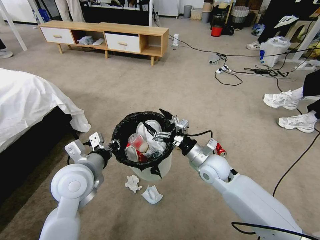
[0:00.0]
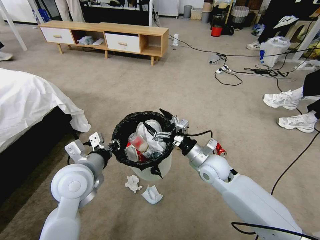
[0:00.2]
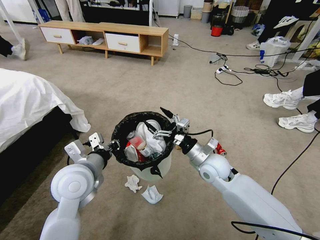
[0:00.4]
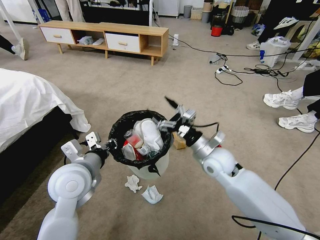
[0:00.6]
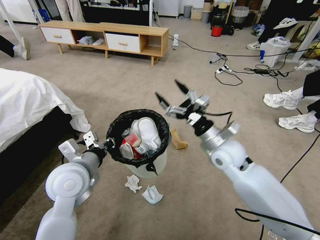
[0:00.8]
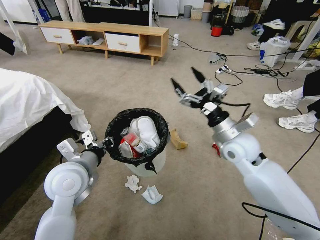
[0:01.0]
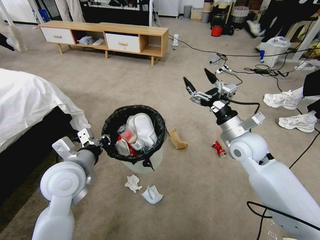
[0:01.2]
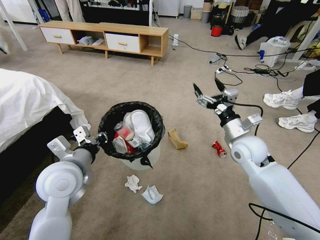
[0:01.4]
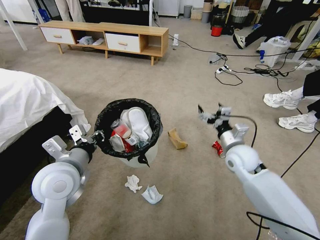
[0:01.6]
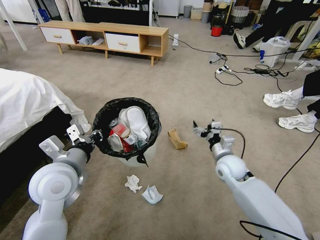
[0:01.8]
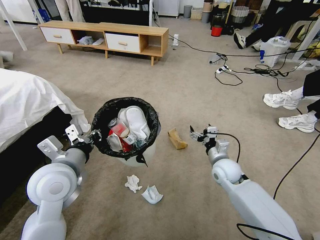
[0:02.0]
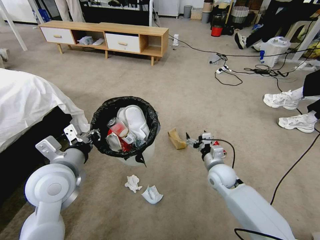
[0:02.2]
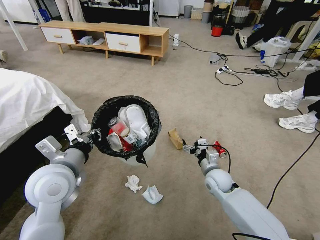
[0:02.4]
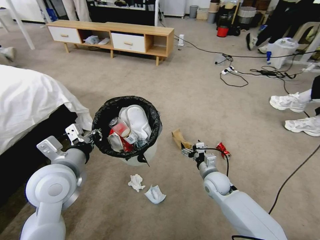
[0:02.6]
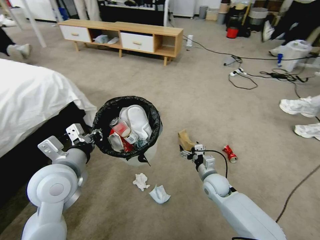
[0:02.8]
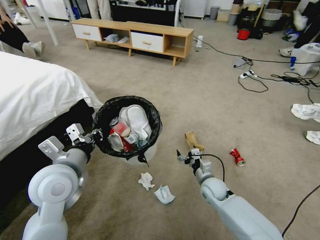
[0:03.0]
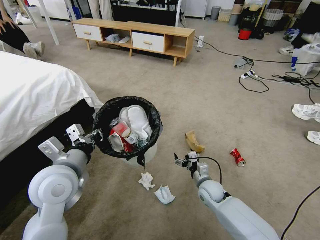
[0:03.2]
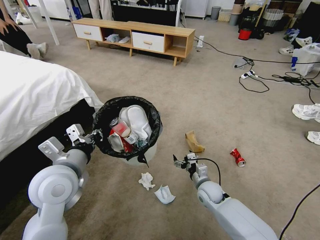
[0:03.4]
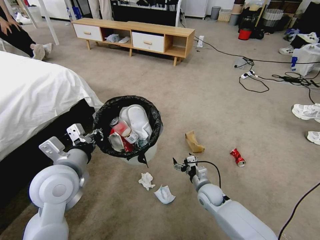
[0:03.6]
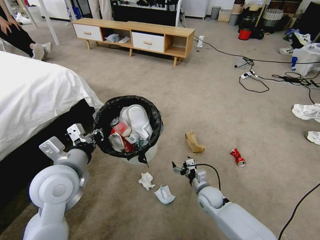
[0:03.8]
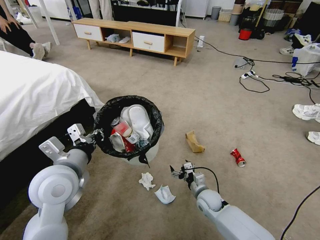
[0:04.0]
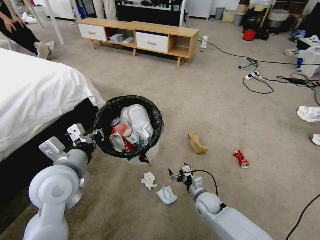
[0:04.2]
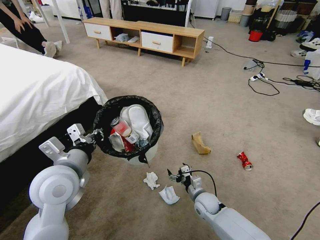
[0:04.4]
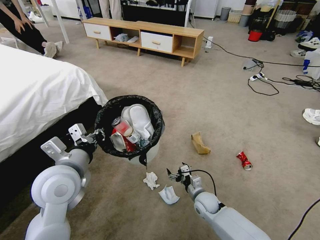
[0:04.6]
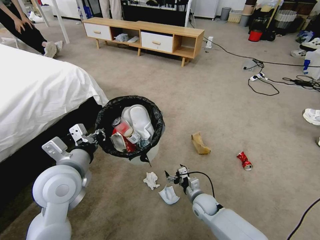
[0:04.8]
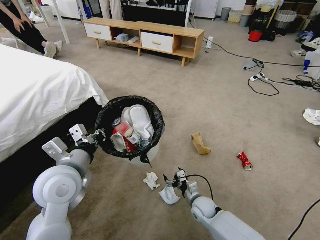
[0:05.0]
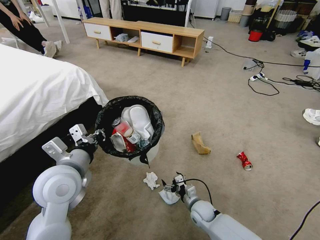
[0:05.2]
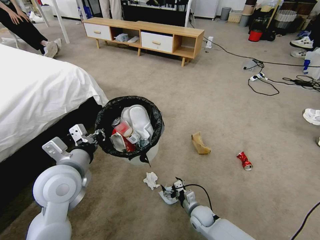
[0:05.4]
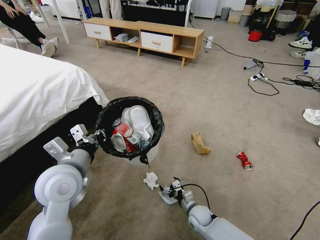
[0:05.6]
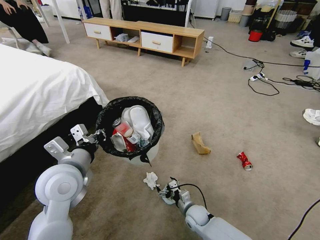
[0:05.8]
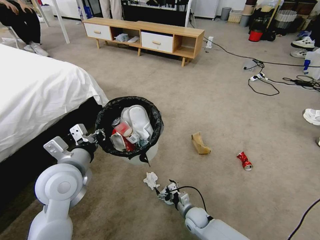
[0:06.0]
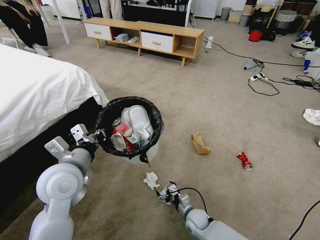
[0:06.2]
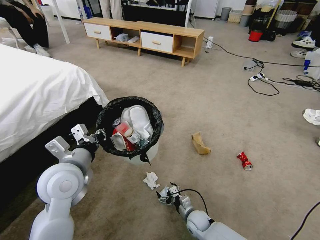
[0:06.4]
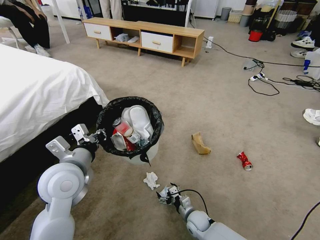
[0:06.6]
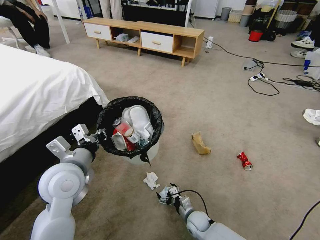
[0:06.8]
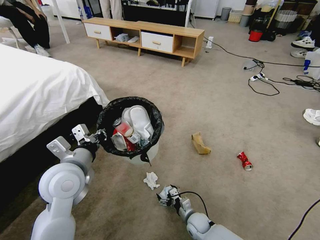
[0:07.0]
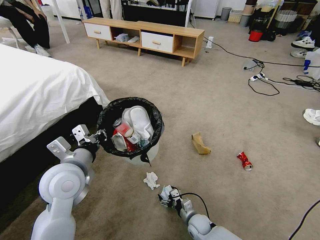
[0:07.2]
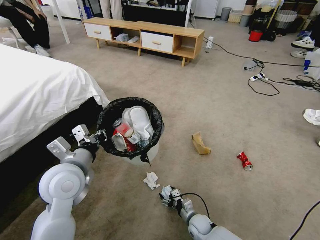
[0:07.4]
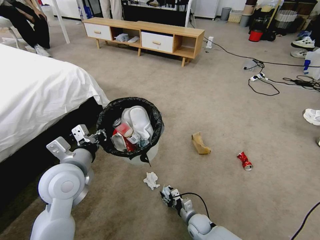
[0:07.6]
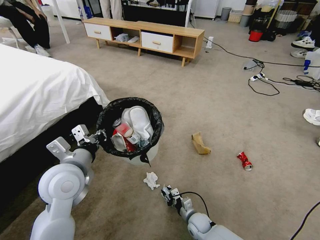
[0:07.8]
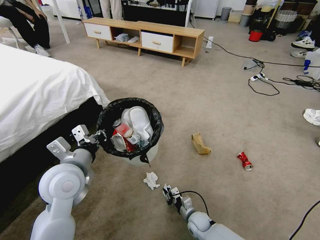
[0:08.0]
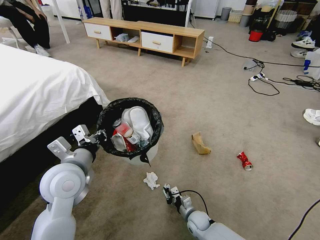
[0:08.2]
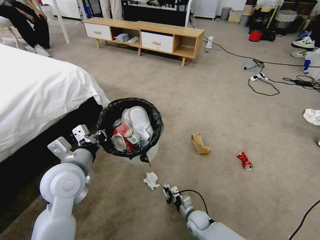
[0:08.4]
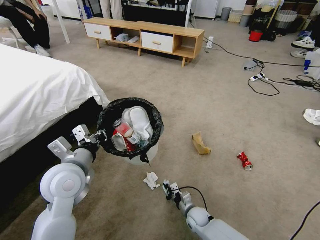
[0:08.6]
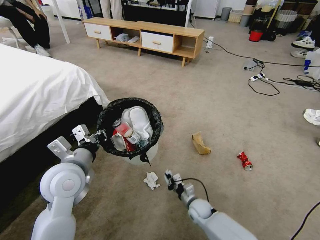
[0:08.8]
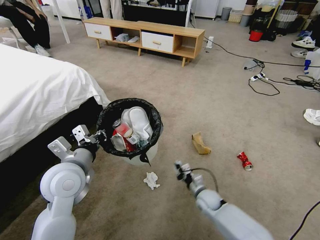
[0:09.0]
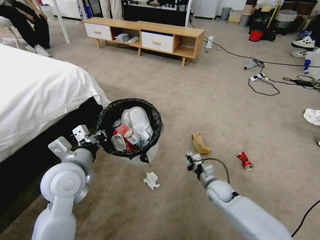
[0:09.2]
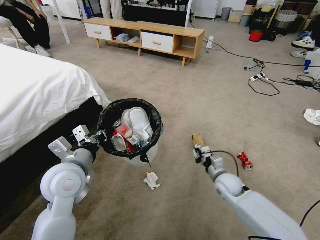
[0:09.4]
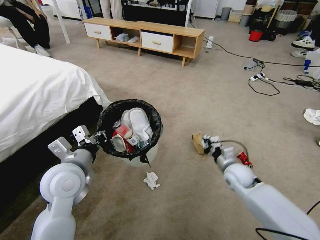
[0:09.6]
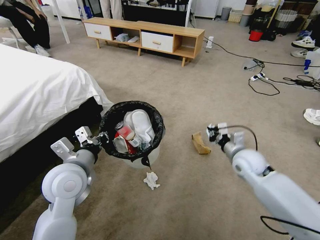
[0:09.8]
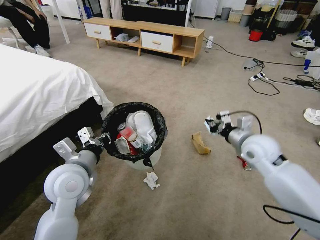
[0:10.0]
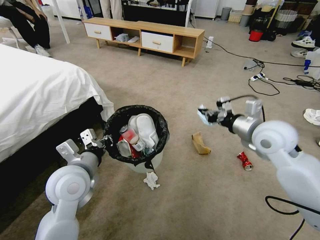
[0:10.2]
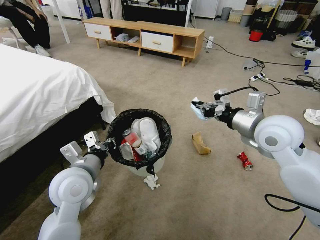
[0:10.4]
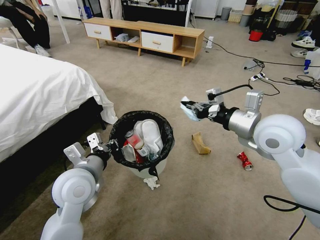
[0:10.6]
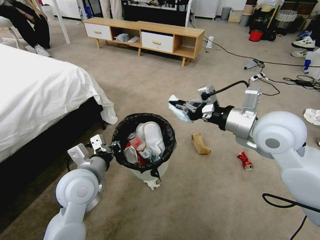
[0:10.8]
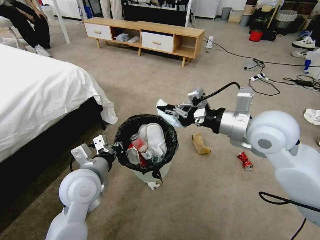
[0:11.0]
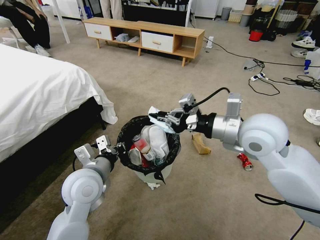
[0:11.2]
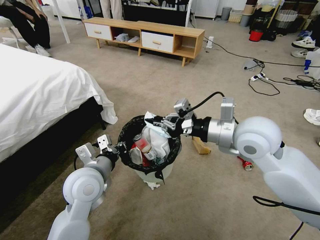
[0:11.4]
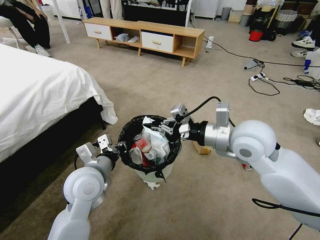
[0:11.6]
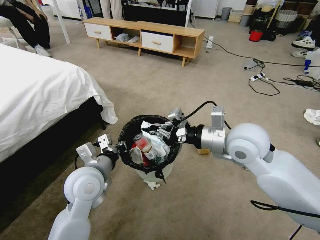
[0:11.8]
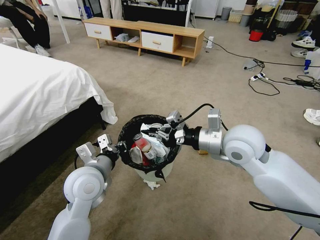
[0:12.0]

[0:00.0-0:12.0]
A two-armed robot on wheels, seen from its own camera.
Task of the whole recording: Pick up the trash bin and place the garbage on the floor into it.
0:00.0 to 0:01.6: The right gripper moves to the right, roughly 10 cm, and reaches approximately 10 cm upward, then returns.
0:01.6 to 0:03.0: The right gripper heads downward, covering some 15 cm.
0:03.0 to 0:04.4: The right gripper goes some 10 cm downward.
0:04.4 to 0:06.0: The right gripper is displaced downward by roughly 5 cm.
0:06.0 to 0:07.6: The right gripper closes its fingers.
0:07.6 to 0:09.0: The right gripper moves upward and forward, about 10 cm, and closes its fingers.
0:09.0 to 0:10.4: The right gripper heads upward, covering roughly 40 cm.
0:10.4 to 0:12.0: The right gripper goes approximately 10 cm to the left.

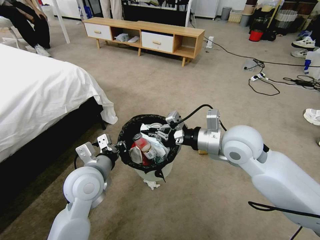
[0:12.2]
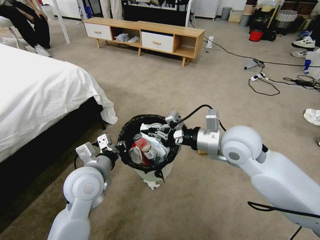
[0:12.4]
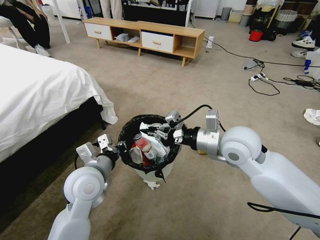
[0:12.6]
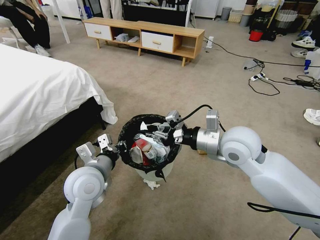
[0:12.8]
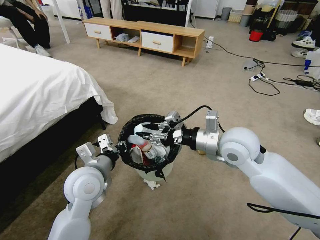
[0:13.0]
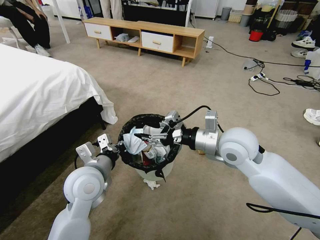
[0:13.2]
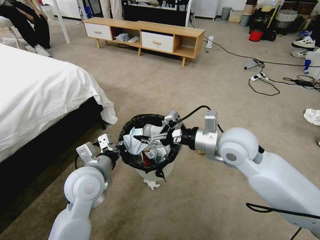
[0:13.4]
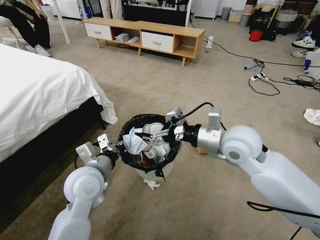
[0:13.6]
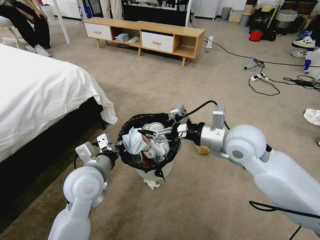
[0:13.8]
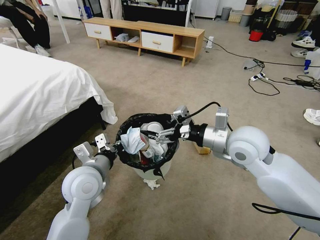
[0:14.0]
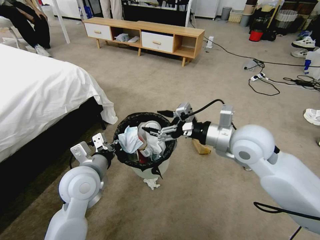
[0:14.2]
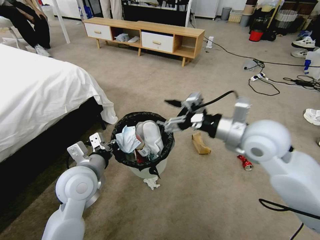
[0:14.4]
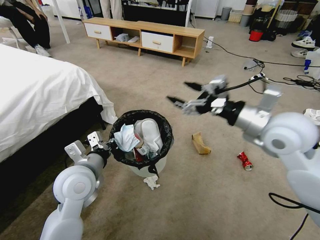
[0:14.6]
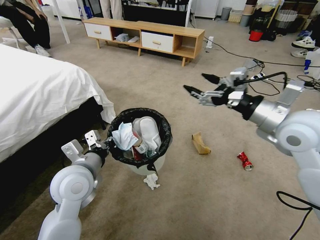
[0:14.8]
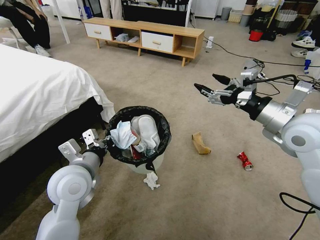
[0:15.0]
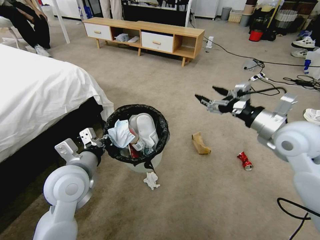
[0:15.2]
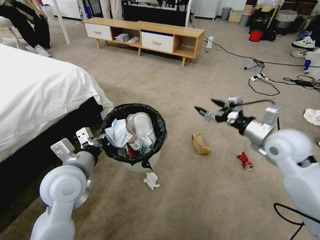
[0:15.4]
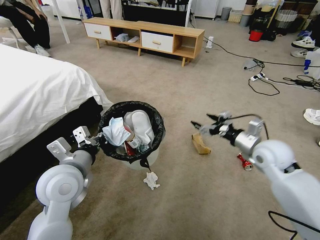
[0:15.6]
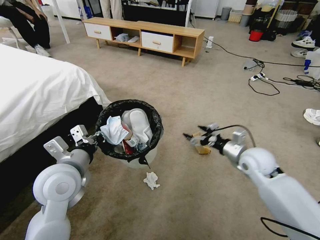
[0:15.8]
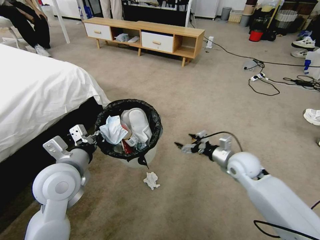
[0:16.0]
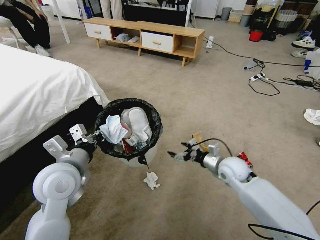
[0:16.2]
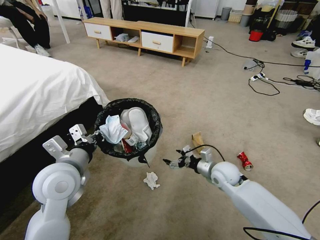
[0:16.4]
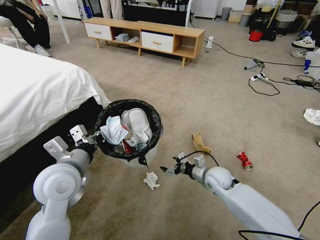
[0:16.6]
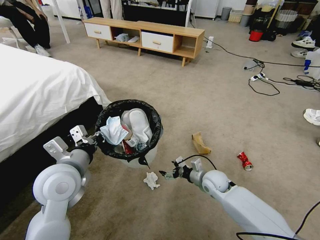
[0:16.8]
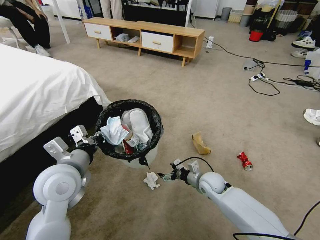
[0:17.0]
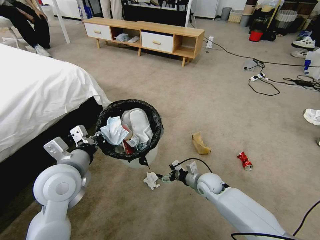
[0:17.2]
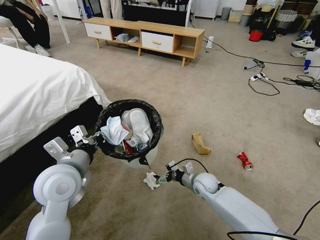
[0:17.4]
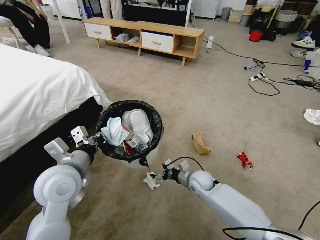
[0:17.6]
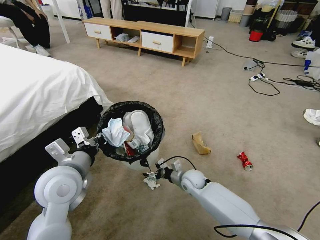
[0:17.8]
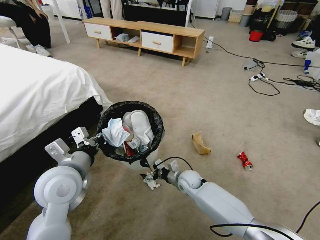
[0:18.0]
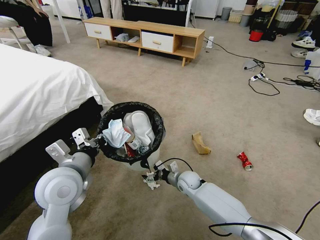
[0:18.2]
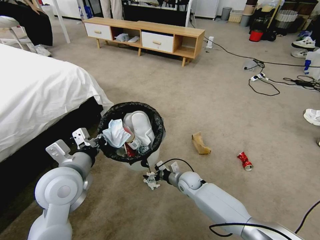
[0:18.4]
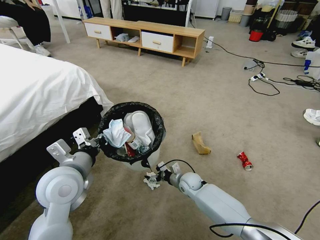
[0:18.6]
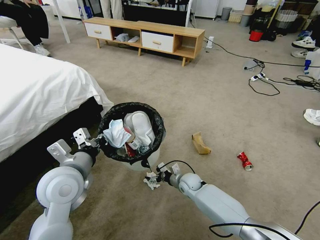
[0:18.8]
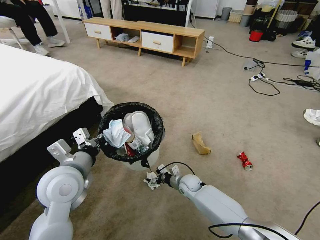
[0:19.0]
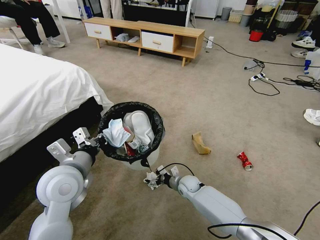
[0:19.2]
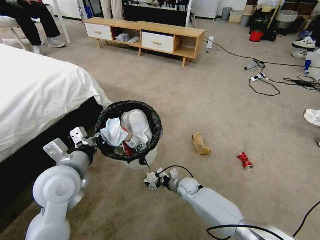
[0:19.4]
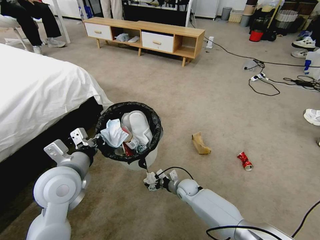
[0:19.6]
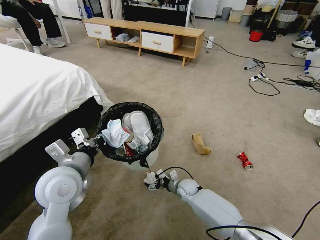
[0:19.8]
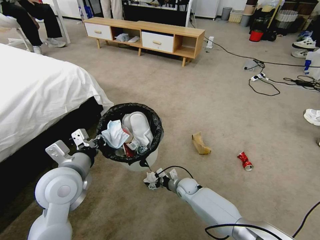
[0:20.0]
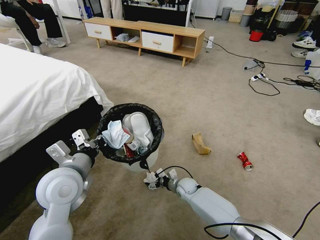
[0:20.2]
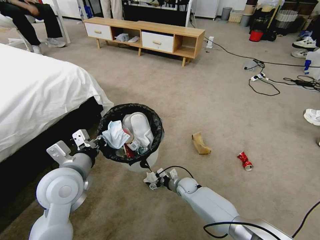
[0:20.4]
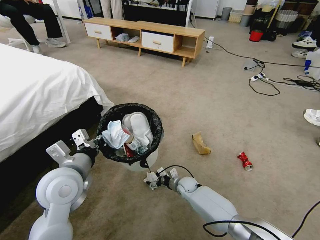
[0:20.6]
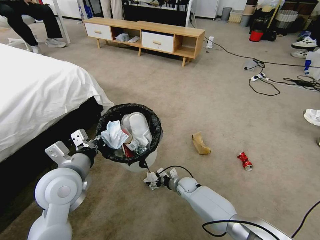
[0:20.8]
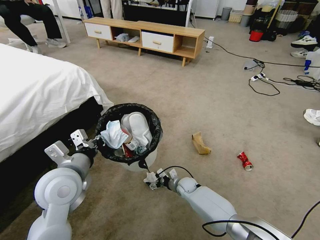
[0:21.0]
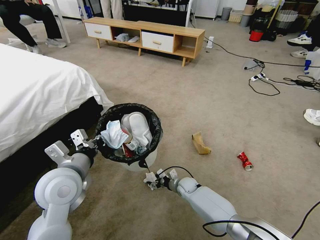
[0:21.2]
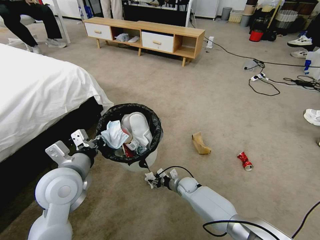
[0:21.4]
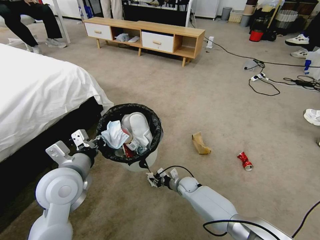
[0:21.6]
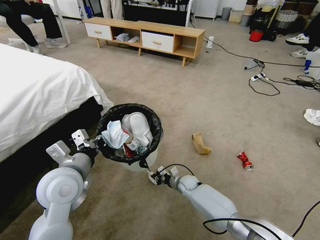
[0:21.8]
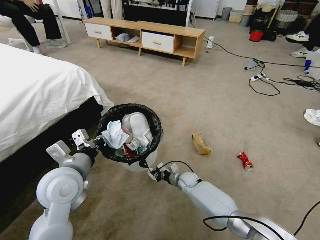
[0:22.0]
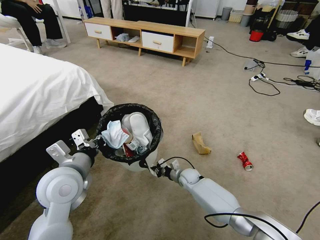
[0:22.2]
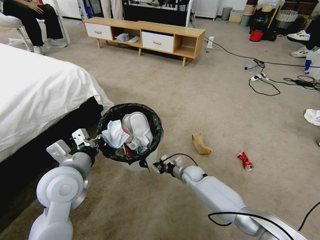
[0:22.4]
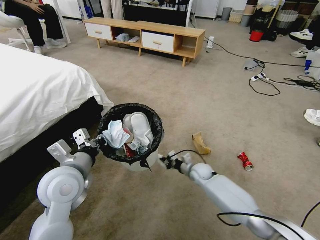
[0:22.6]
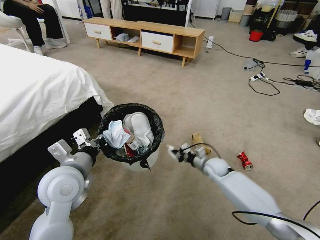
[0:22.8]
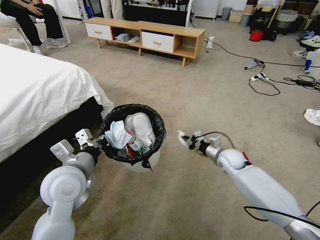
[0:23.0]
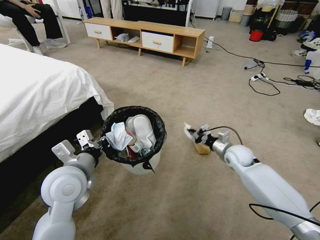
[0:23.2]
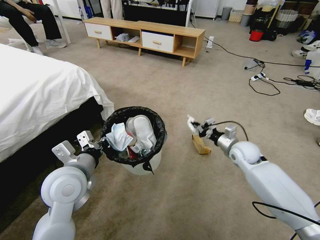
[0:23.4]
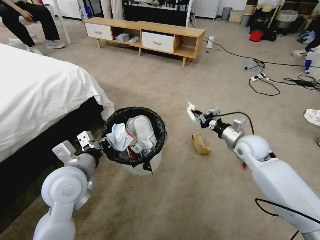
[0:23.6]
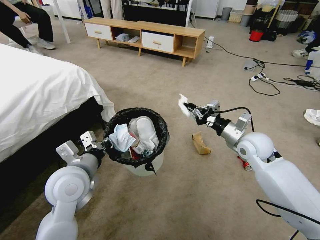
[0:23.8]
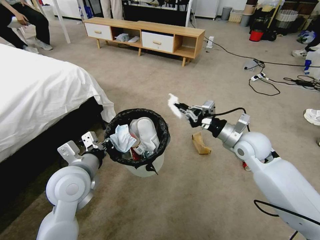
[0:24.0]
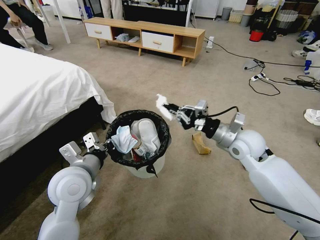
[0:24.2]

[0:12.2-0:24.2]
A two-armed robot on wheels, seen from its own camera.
Task of the whole recording: Pick up the trash bin and place the garbage on the floor into it.
0:12.2 to 0:13.8: The right gripper opens up.
0:13.8 to 0:15.2: The right gripper heads to the right, covering about 15 cm.
0:15.2 to 0:16.6: The right gripper moves downward and to the left, about 30 cm.
0:16.6 to 0:18.2: The right gripper goes some 15 cm to the left and downward.
0:18.2 to 0:19.8: The right gripper goes about 5 cm downward.
0:19.8 to 0:21.2: The grippers make only small movements.
0:21.2 to 0:22.6: The right gripper goes approximately 10 cm upward and to the right, and closes up.
0:22.6 to 0:24.2: The right gripper is displaced upward by approximately 25 cm.
